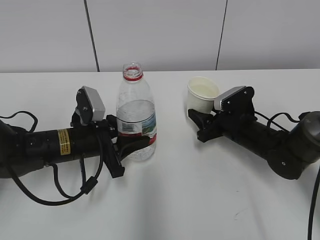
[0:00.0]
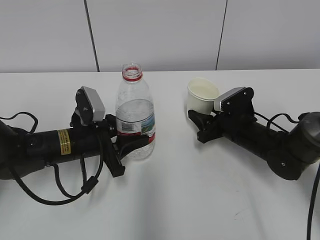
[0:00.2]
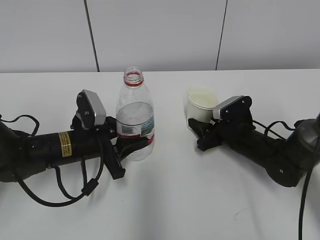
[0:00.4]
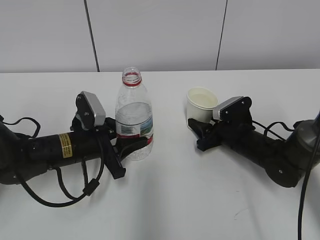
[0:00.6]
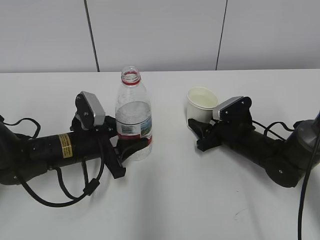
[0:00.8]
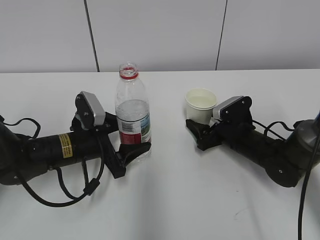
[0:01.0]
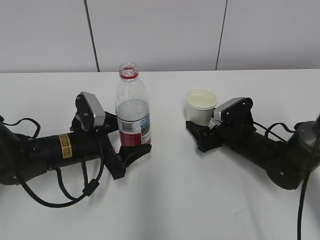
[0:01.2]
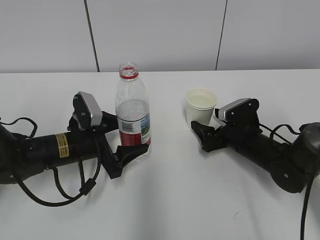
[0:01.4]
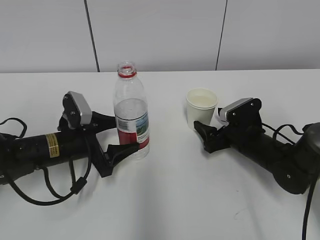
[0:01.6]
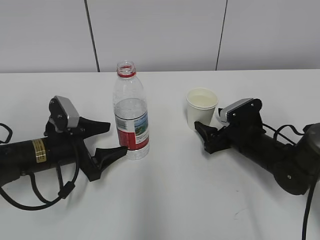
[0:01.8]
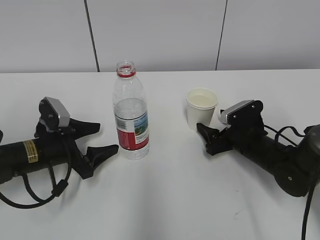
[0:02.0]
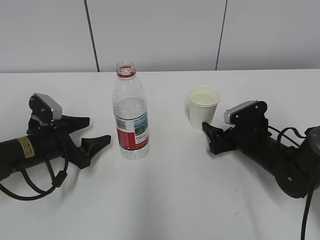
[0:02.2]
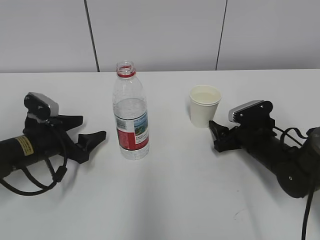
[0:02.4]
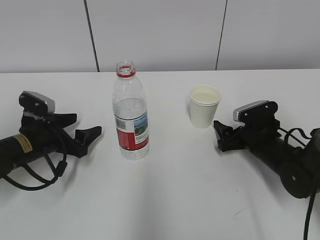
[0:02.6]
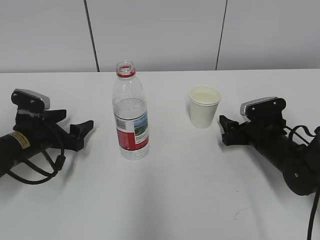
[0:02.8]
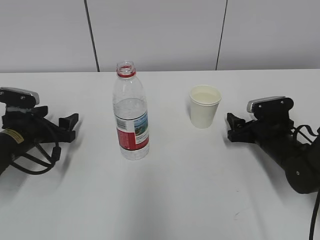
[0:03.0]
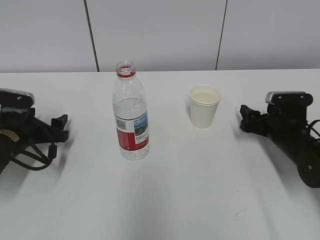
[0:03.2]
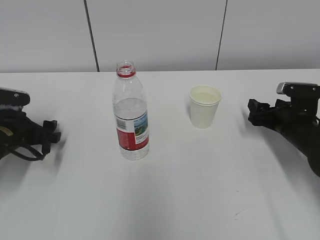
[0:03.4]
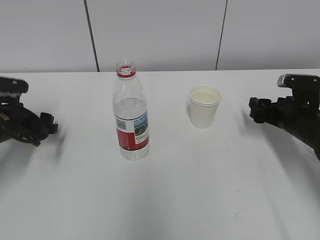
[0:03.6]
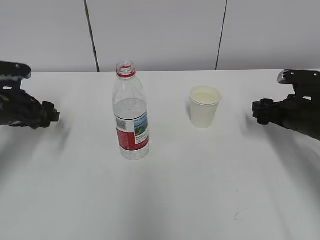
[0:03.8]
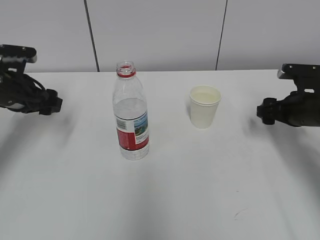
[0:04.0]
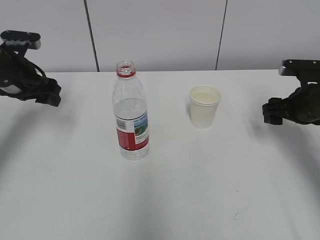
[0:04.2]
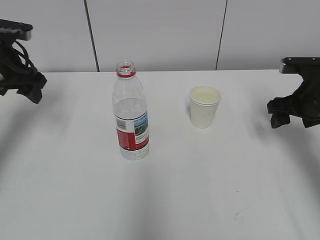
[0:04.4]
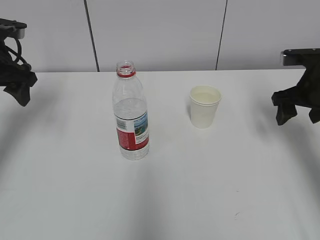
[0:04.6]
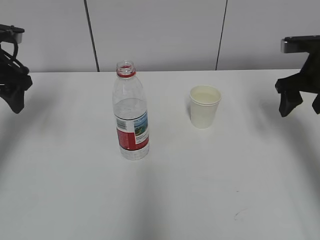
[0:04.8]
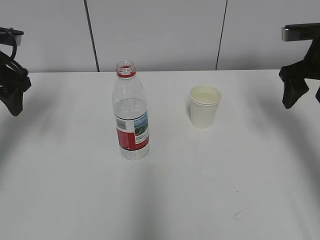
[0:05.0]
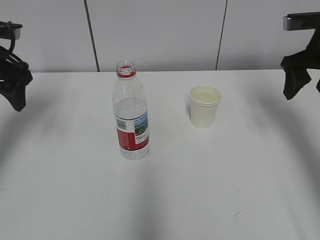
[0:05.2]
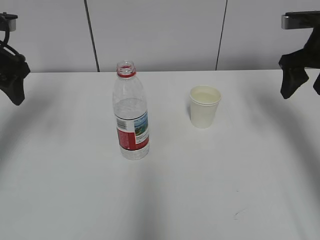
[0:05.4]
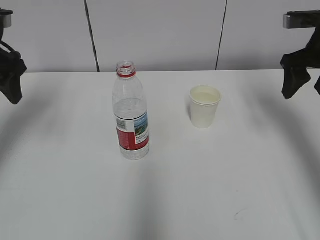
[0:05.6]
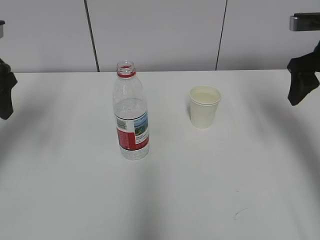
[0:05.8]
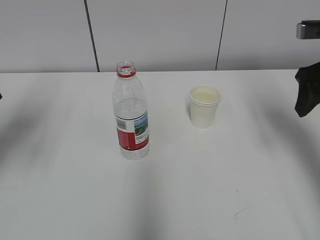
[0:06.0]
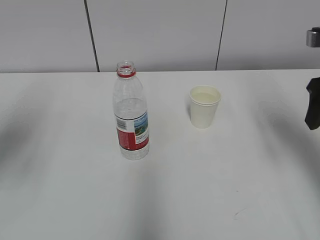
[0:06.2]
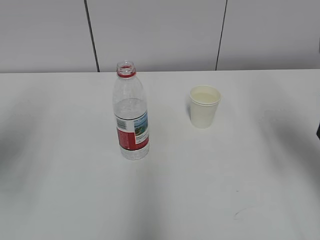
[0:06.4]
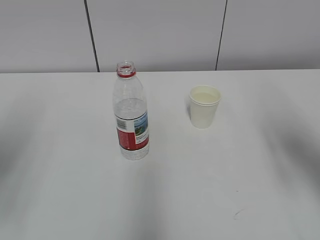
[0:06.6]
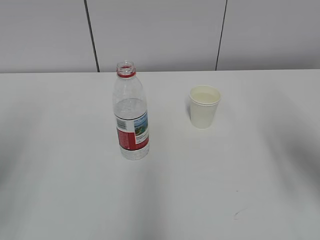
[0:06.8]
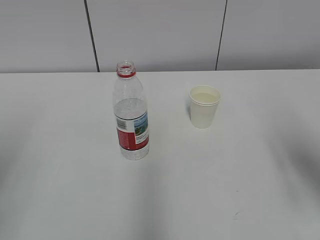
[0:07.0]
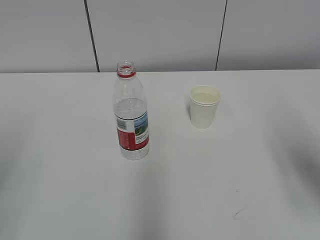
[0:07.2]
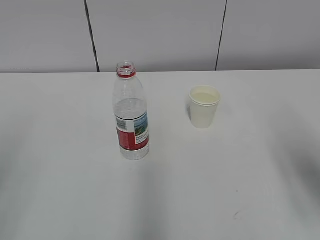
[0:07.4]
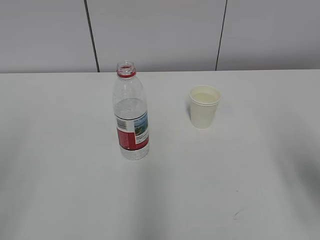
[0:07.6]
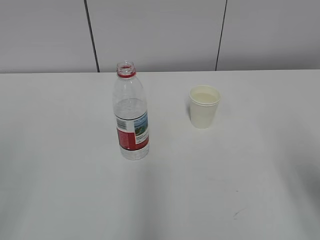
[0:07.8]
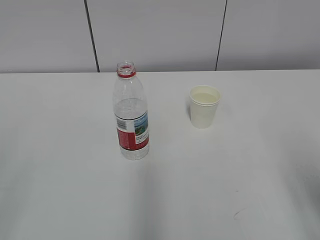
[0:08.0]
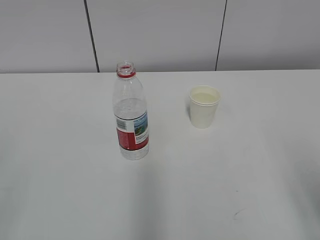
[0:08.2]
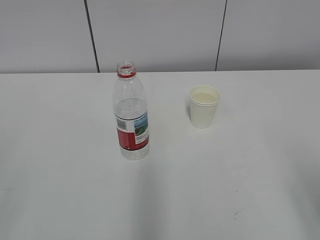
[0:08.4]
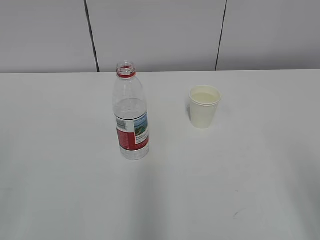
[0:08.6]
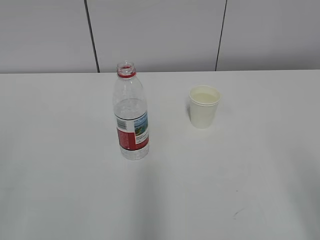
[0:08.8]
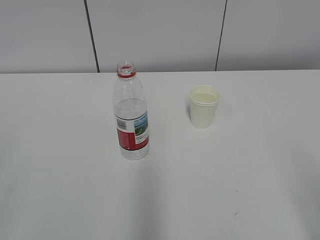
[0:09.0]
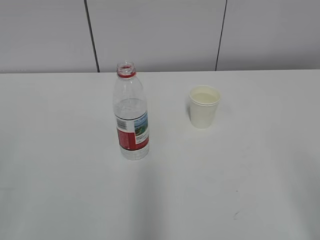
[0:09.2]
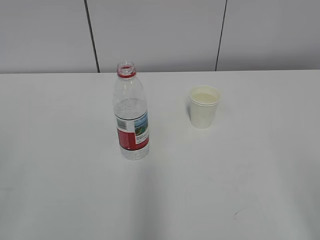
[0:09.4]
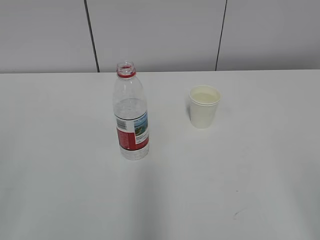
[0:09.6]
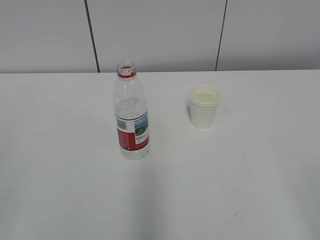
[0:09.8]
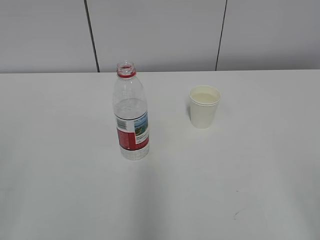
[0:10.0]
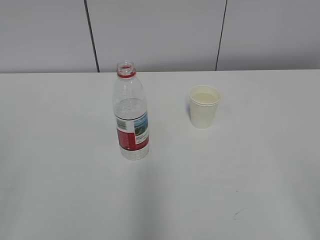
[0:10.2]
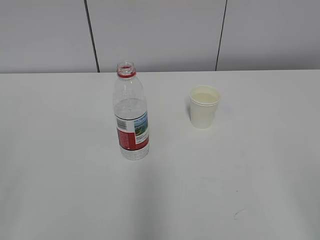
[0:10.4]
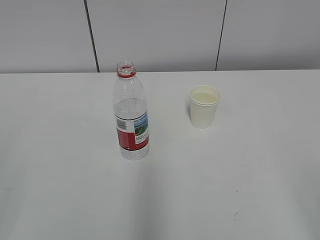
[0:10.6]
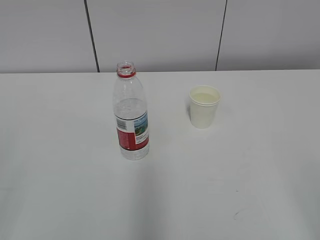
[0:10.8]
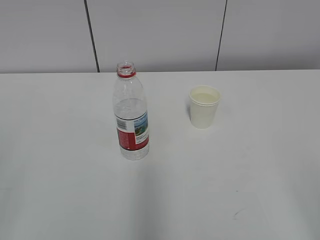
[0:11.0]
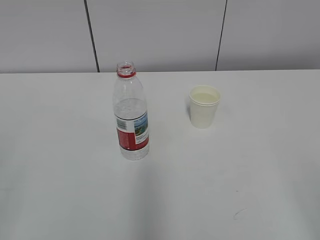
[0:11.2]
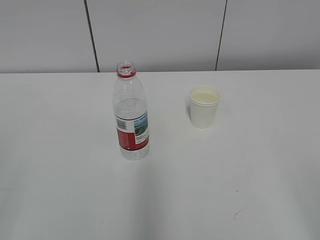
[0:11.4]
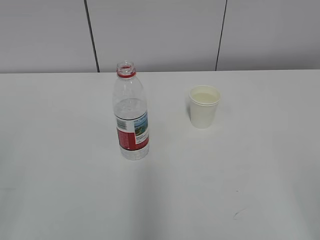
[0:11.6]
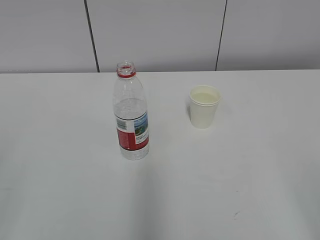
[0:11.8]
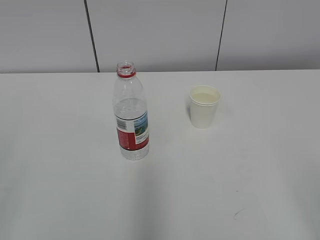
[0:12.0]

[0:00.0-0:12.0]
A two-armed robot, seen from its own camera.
0:00.0 to 0:01.6: The right gripper opens its fingers. The left gripper opens its fingers.
0:01.6 to 0:03.0: The left gripper shifts approximately 10 cm to the left.
0:03.0 to 0:04.4: The grippers both shift upward by about 15 cm.
0:04.4 to 0:06.0: The left gripper goes approximately 10 cm backward. The right gripper travels upward by about 10 cm.
0:06.0 to 0:07.6: Both grippers travel together backward, about 20 cm.
0:07.6 to 0:09.0: The right gripper shifts about 10 cm backward.
0:10.4 to 0:12.0: Both grippers stay about where they are.

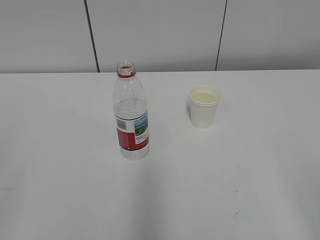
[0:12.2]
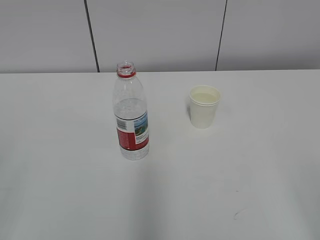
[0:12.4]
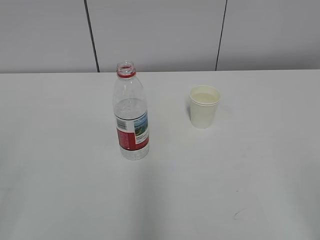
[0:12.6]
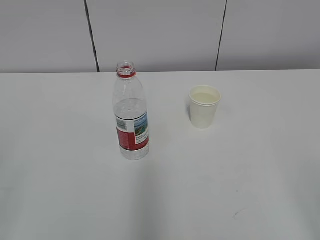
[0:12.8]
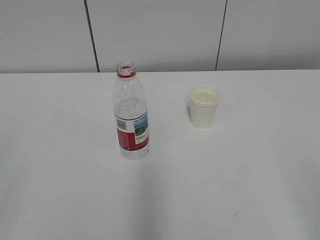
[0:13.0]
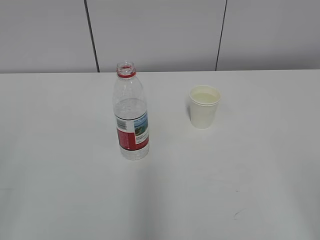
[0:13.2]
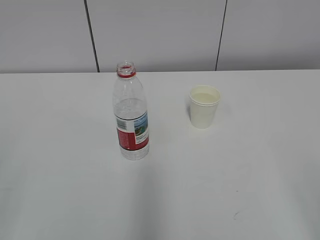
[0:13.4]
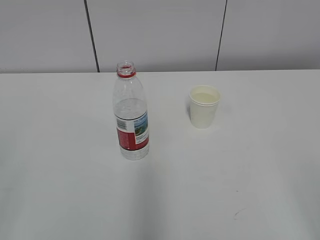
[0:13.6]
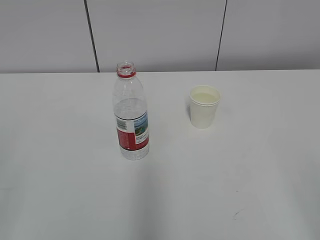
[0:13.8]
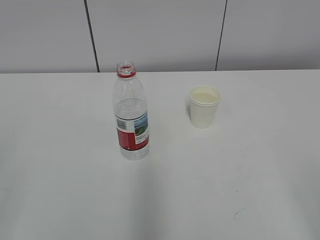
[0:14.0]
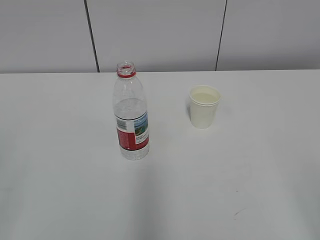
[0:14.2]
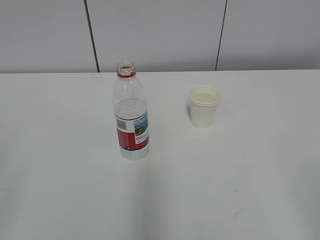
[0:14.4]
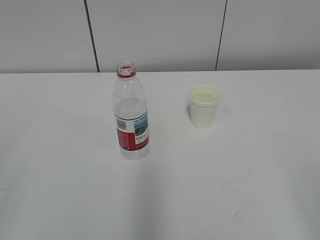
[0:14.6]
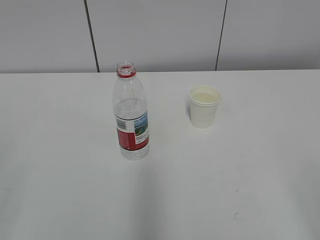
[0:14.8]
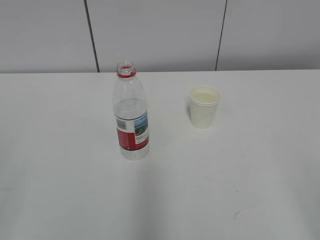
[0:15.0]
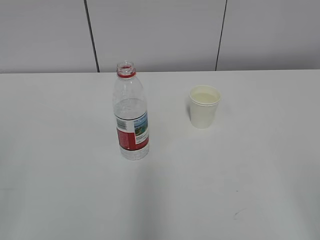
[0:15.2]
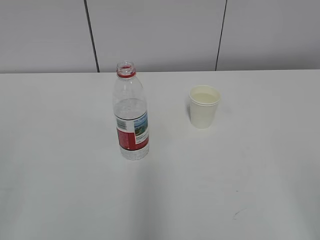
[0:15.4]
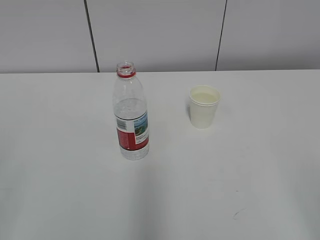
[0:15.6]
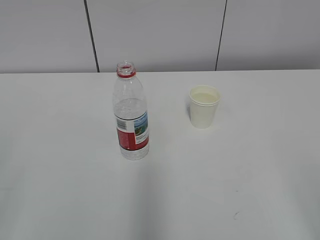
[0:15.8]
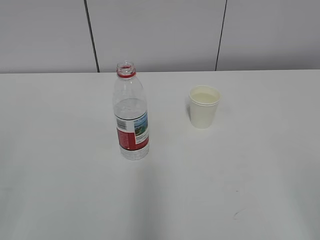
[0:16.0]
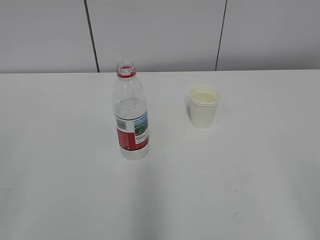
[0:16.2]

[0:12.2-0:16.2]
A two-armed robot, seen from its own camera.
0:12.2 to 0:16.2: The two grippers keep their place.
